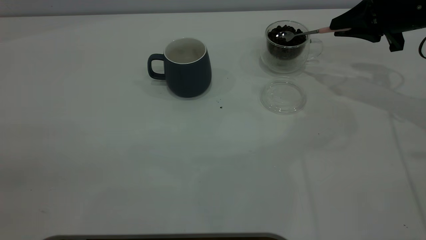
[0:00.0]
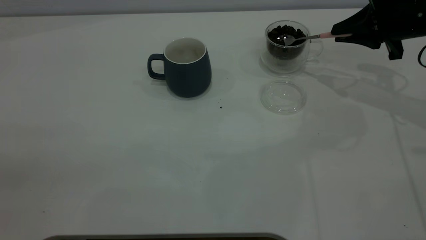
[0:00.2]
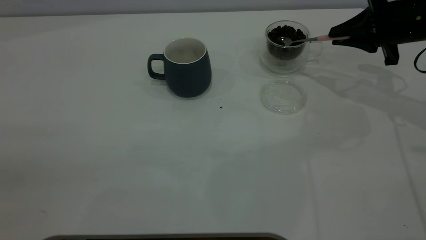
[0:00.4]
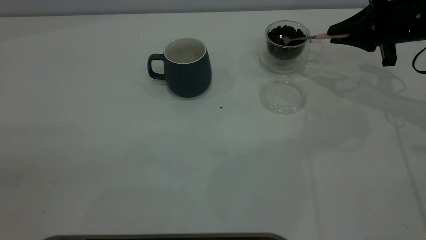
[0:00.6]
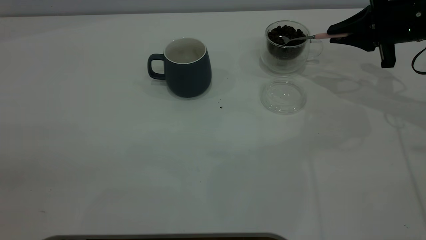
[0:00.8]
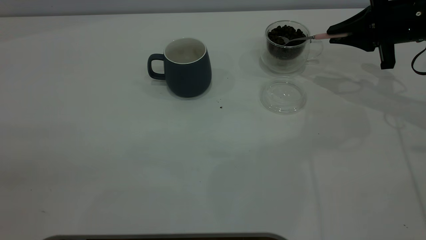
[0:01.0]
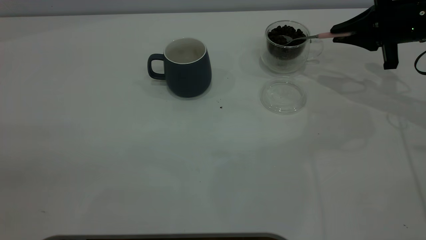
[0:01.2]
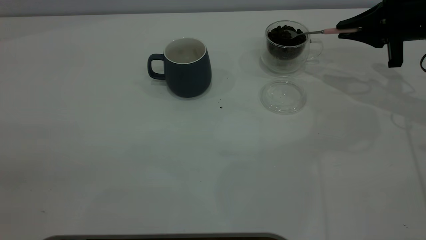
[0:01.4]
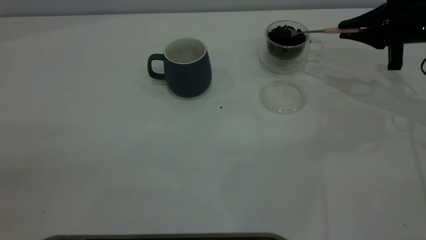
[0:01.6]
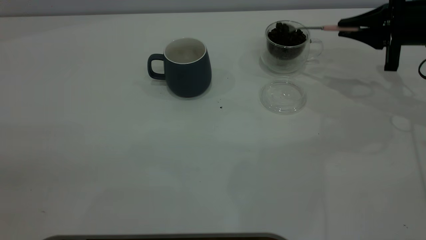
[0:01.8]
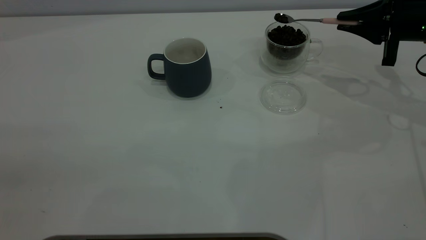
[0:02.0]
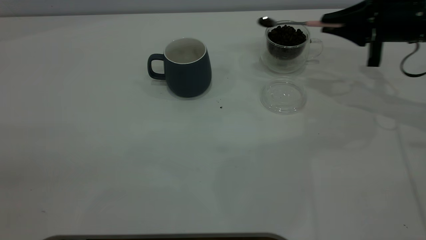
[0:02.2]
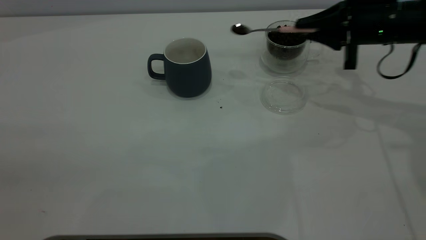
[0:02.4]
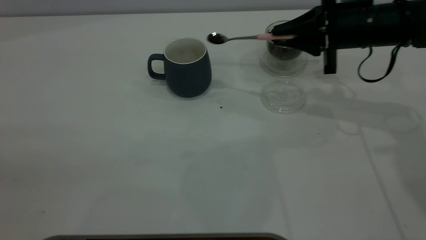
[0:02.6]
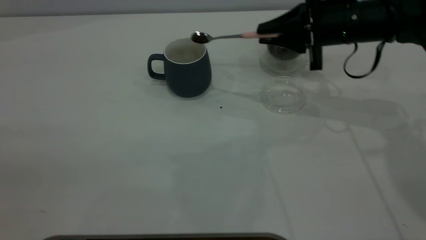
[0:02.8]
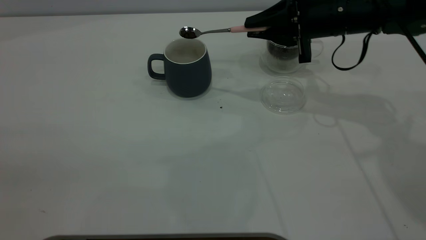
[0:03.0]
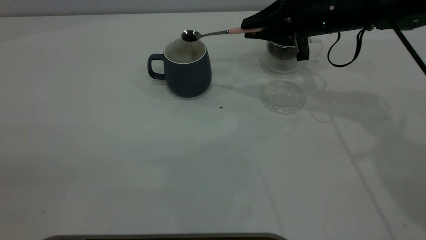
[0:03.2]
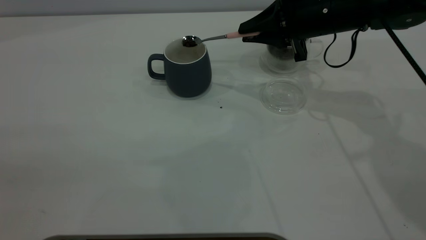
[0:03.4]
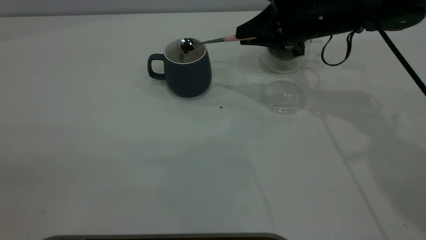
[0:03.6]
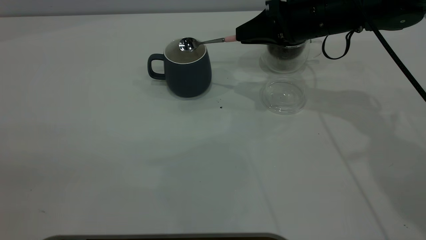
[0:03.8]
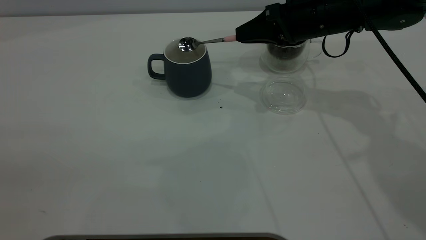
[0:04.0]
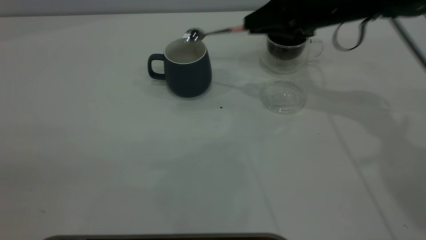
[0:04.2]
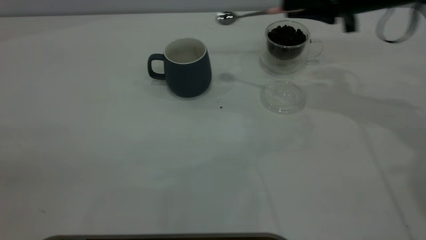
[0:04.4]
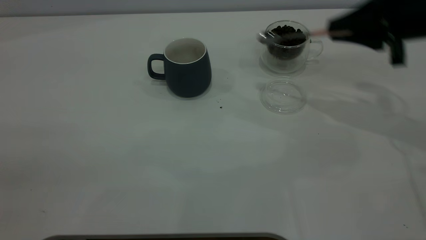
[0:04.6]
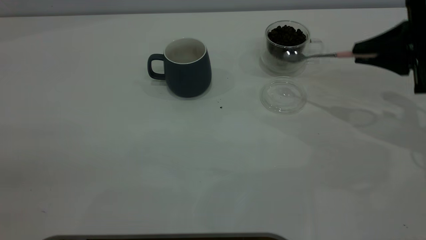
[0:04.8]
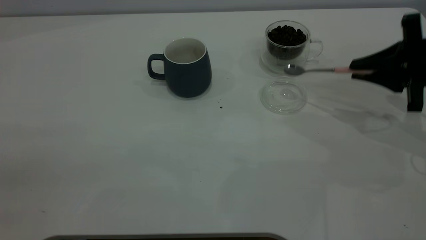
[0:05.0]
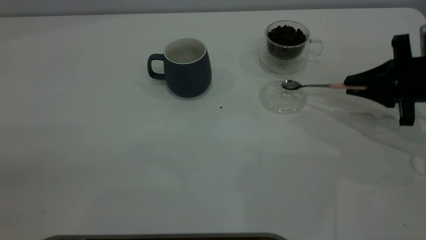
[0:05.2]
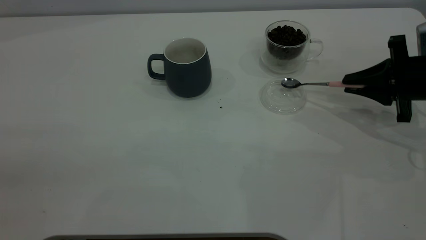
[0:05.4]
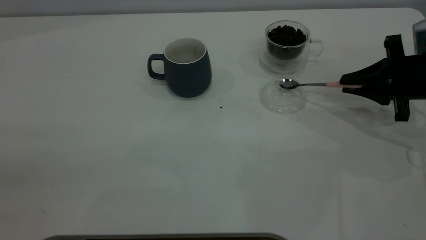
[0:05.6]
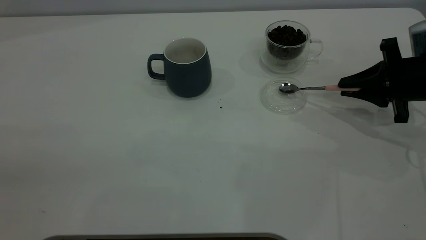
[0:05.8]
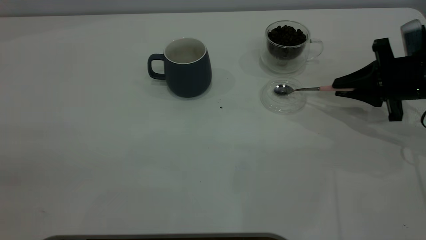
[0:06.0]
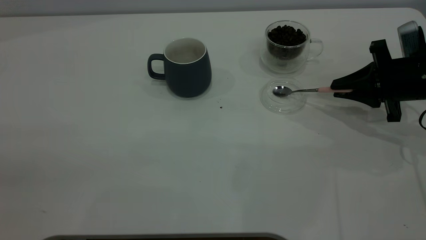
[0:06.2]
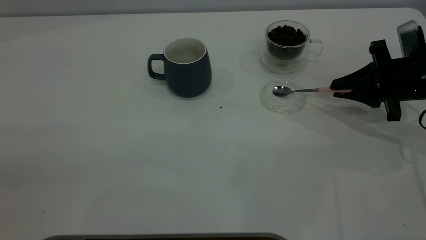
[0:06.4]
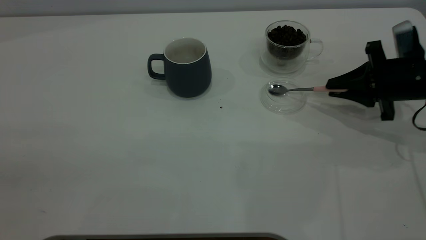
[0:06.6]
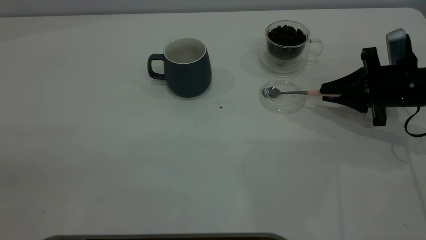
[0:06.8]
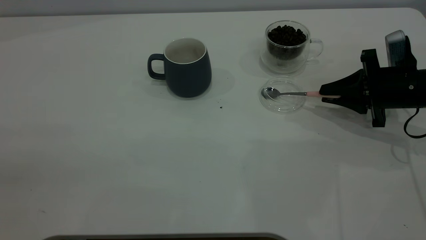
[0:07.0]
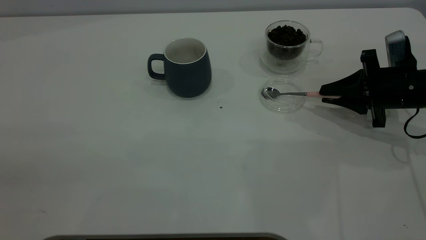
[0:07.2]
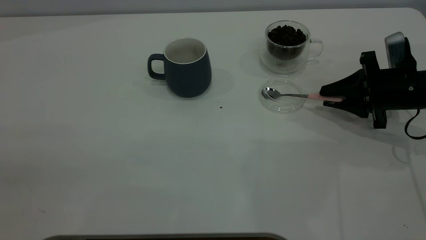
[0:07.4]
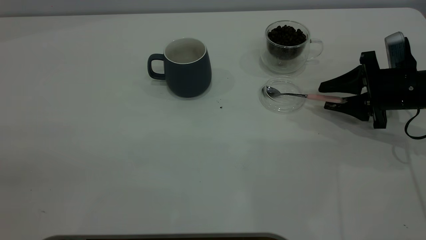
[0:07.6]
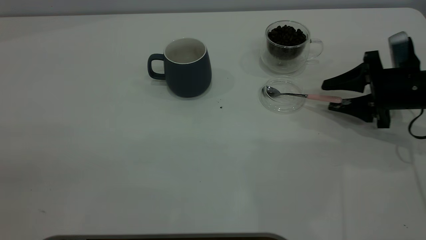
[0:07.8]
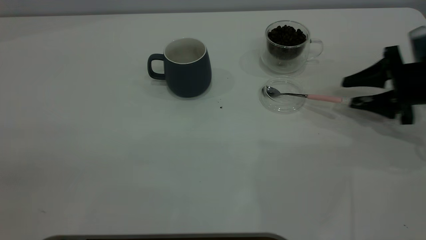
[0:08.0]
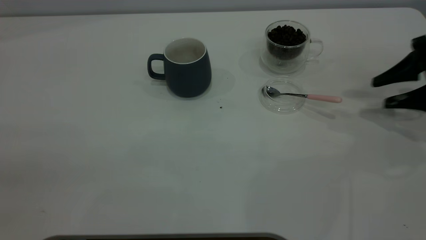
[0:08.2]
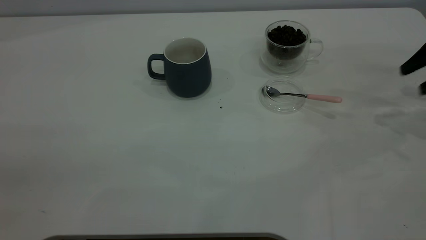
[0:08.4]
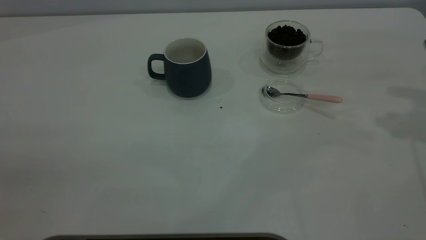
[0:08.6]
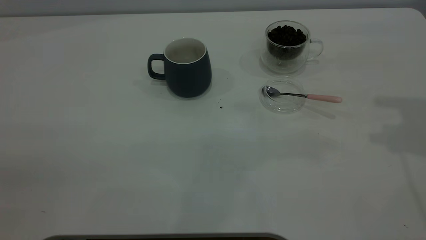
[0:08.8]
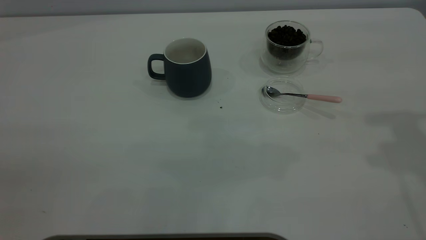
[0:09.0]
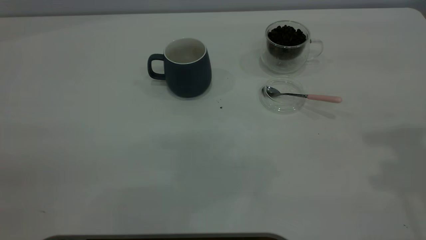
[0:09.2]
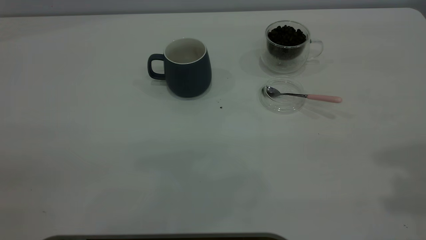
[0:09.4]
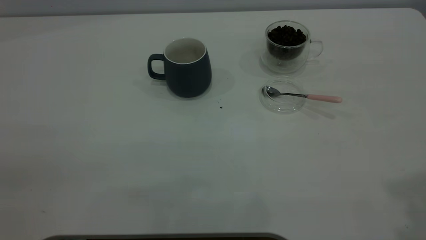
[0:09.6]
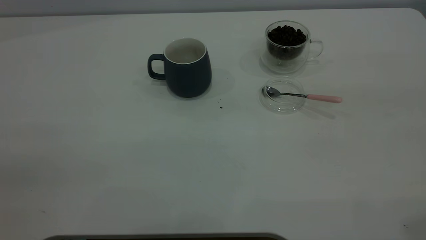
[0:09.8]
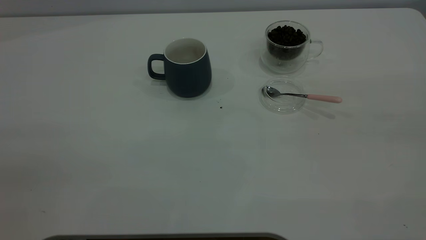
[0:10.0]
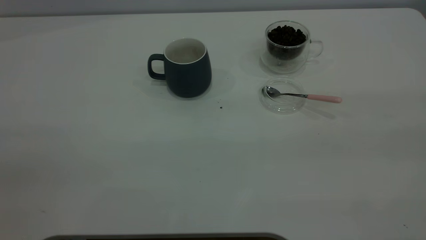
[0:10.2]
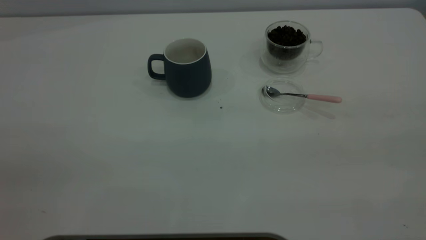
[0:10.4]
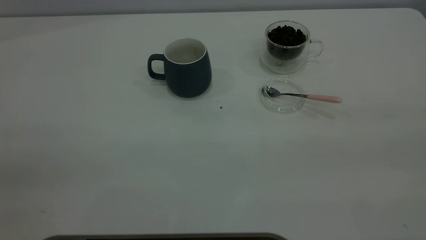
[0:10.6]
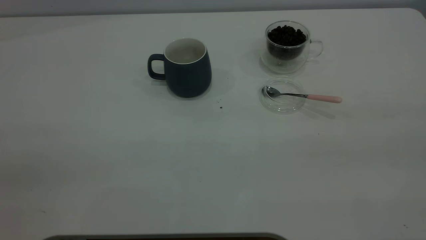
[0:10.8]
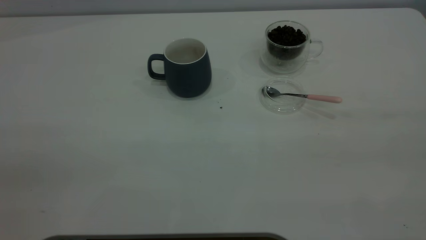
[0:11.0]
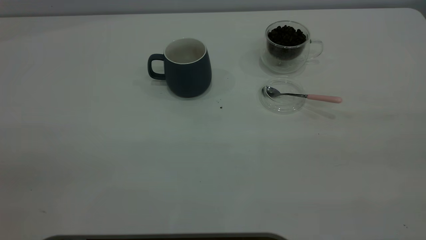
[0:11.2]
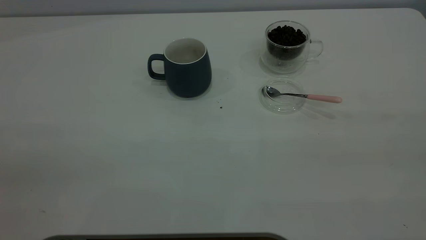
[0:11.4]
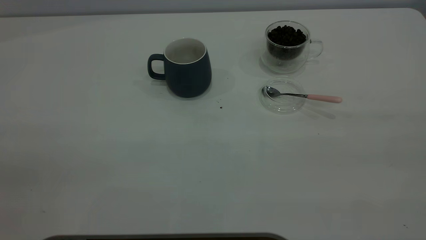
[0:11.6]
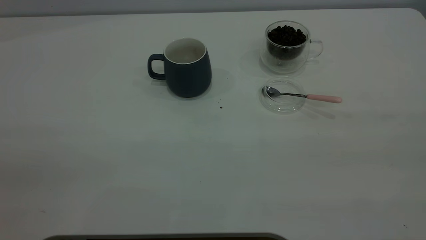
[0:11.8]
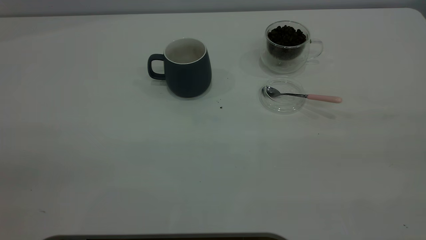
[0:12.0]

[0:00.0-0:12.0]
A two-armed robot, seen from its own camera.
Task of the whole recording: the left gripper place the grey cup in the center of the table, the right gripper take the pink spoon from the cup lid and scoop out the coffee beans from the coffee cup and put them into the grey cup, the right gripper put the spoon back into the cup lid.
Step, 0:00.0 to 0:04.2: Scoop a spoonful of beans into the cup.
Step, 0:04.4 to 0:08.0: Place the spoon back in its original place.
0:01.6 to 0:03.0: The right gripper is displaced to the left by about 15 cm.
0:03.0 to 0:04.4: The right gripper moves to the right, approximately 5 cm.
0:04.4 to 0:06.0: The right gripper is displaced downward and to the right by some 15 cm.
0:06.0 to 0:07.6: The right gripper opens up.
0:07.6 to 0:09.0: The right gripper is displaced upward by some 35 cm.
